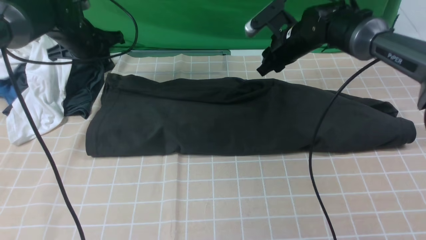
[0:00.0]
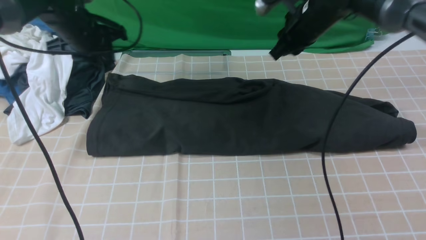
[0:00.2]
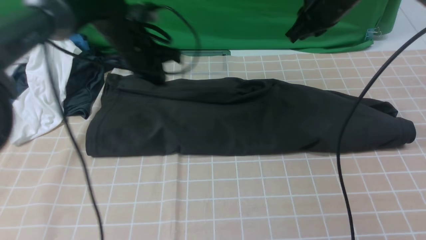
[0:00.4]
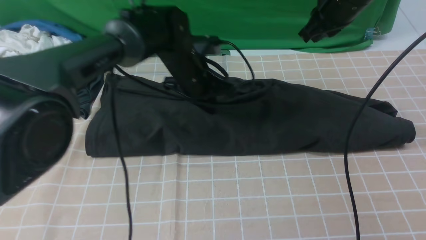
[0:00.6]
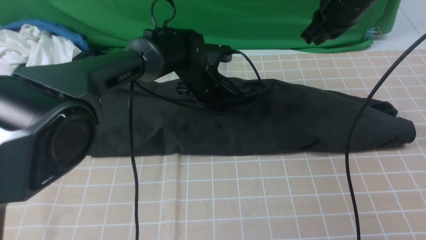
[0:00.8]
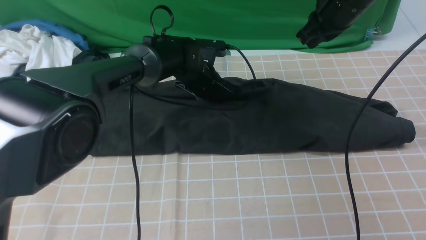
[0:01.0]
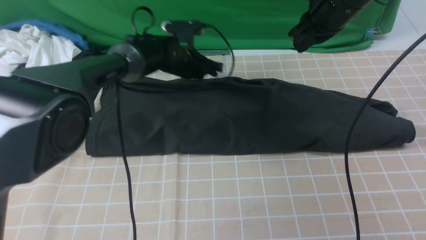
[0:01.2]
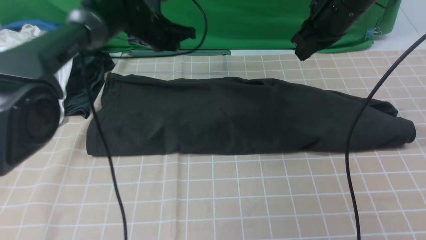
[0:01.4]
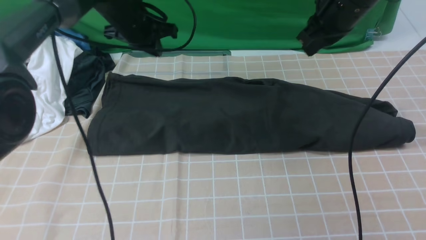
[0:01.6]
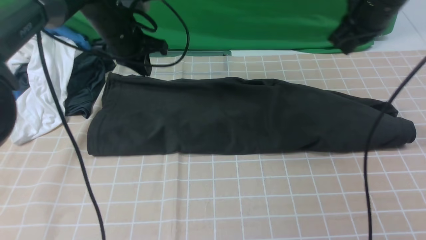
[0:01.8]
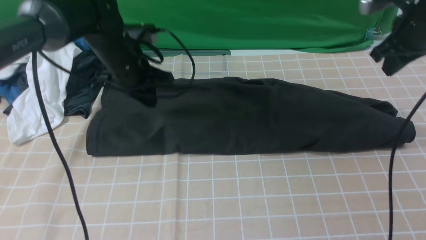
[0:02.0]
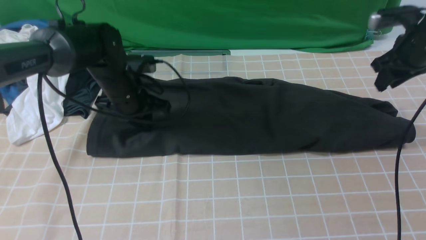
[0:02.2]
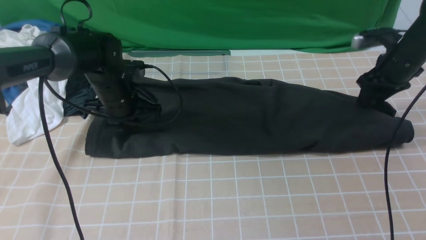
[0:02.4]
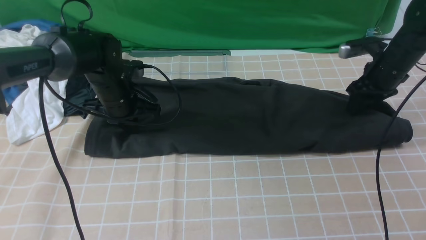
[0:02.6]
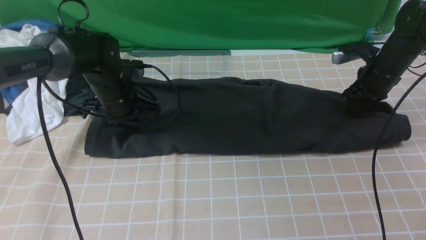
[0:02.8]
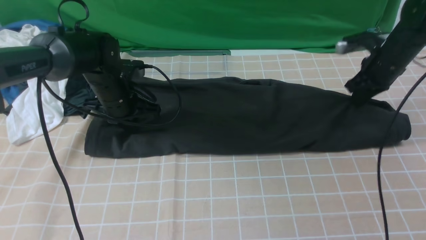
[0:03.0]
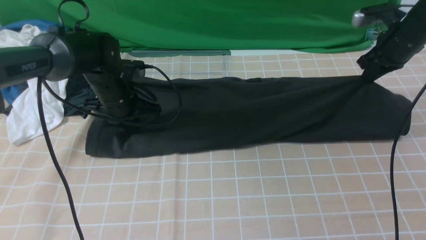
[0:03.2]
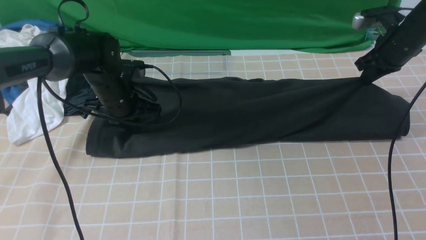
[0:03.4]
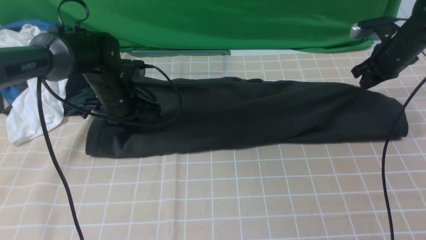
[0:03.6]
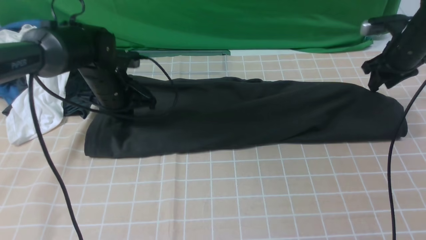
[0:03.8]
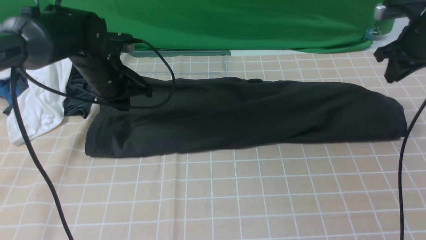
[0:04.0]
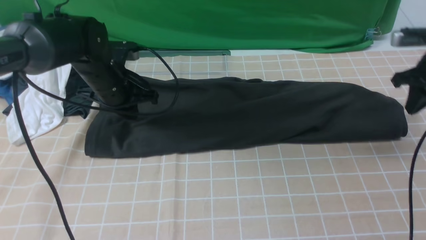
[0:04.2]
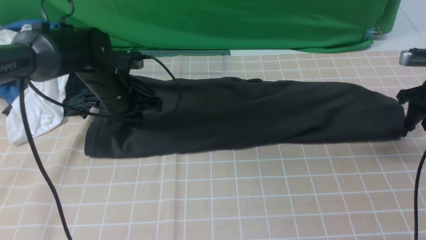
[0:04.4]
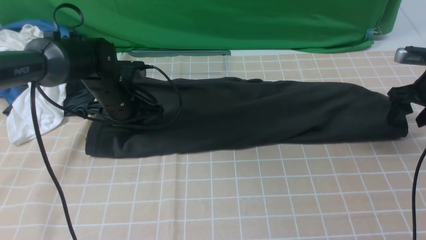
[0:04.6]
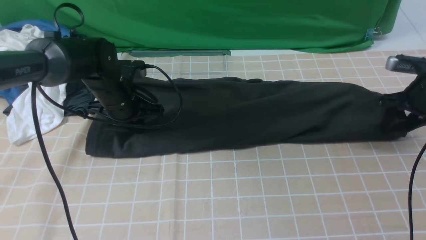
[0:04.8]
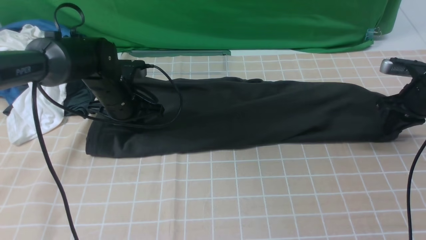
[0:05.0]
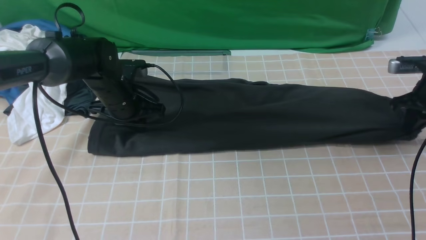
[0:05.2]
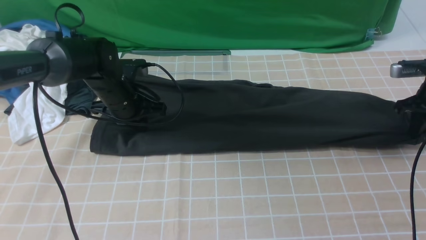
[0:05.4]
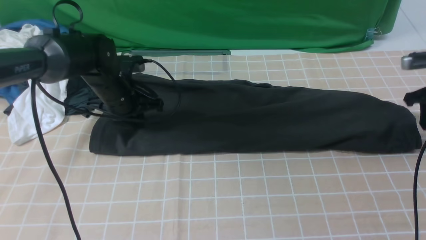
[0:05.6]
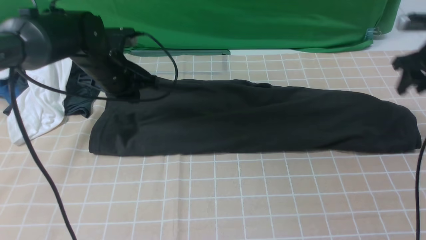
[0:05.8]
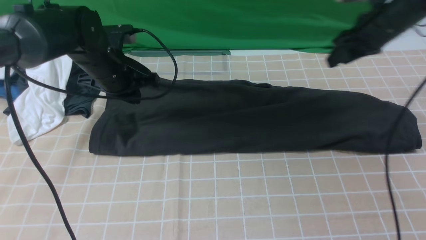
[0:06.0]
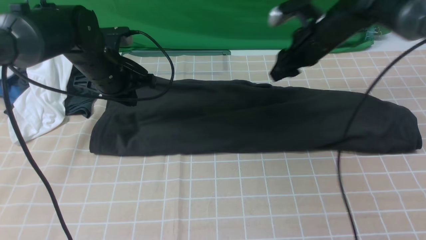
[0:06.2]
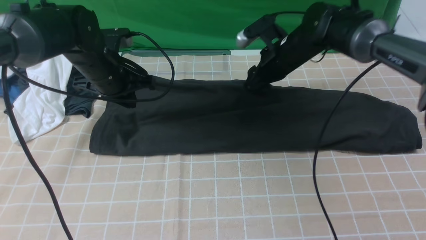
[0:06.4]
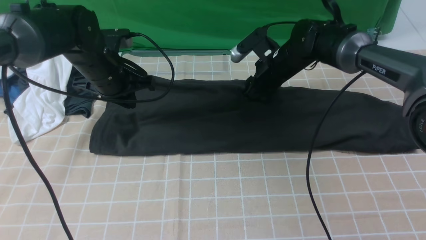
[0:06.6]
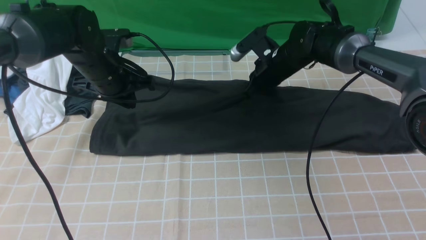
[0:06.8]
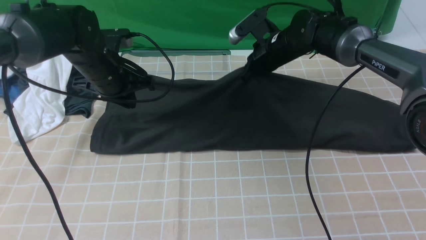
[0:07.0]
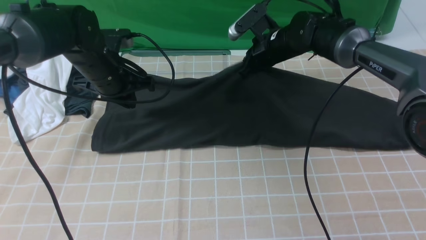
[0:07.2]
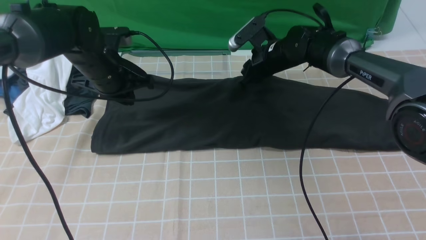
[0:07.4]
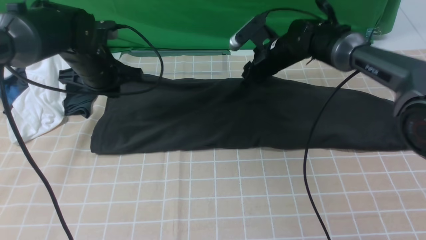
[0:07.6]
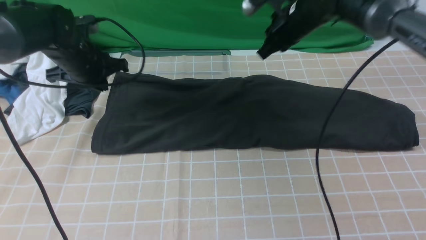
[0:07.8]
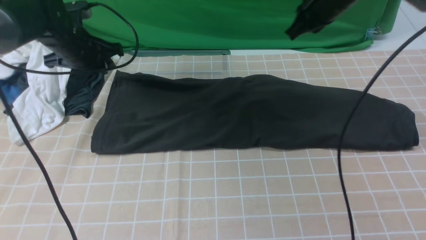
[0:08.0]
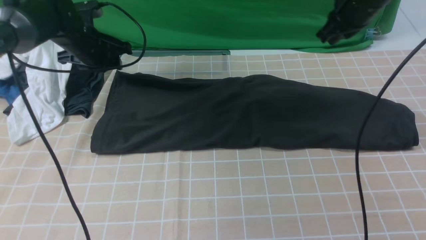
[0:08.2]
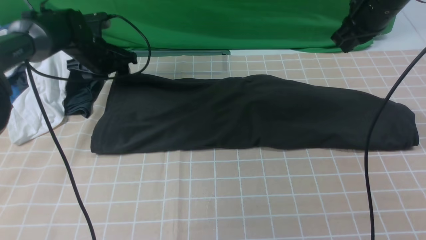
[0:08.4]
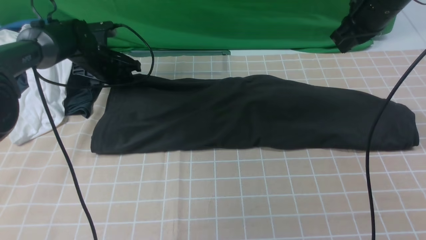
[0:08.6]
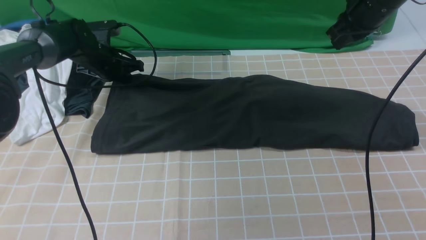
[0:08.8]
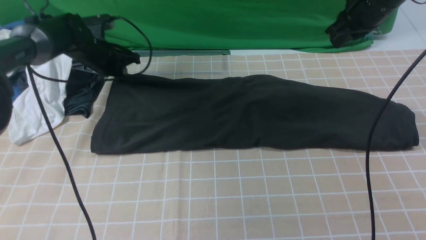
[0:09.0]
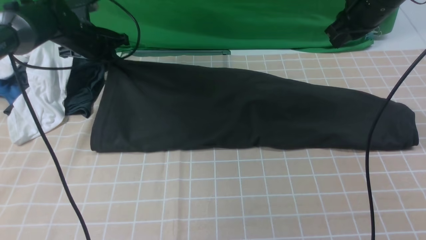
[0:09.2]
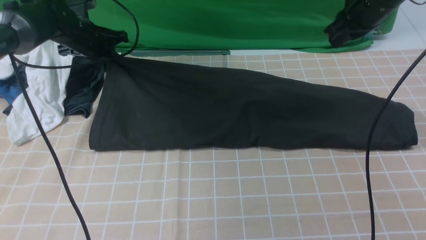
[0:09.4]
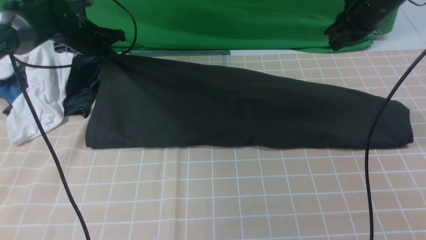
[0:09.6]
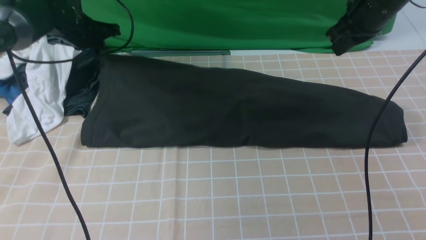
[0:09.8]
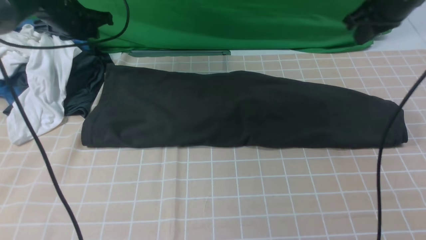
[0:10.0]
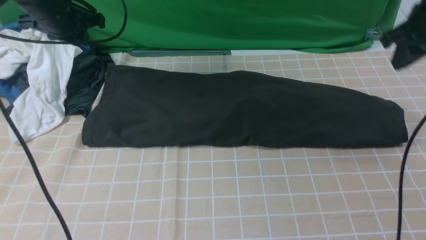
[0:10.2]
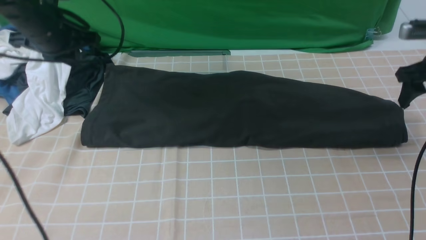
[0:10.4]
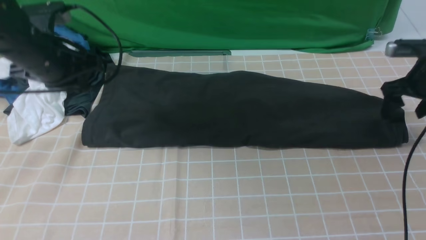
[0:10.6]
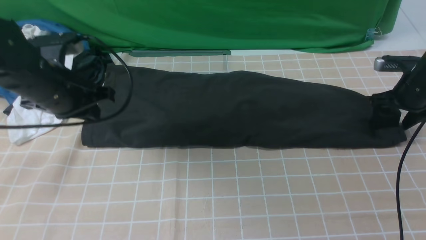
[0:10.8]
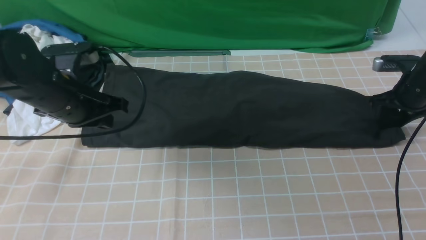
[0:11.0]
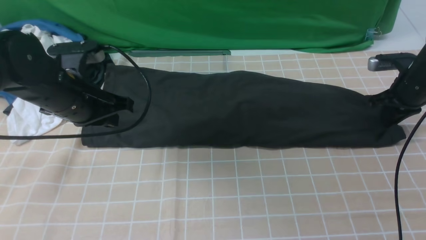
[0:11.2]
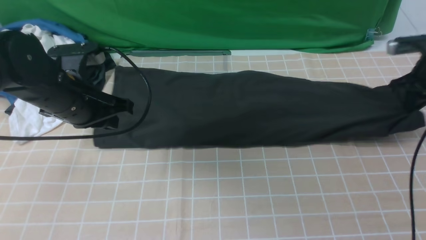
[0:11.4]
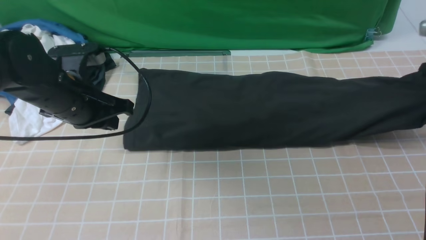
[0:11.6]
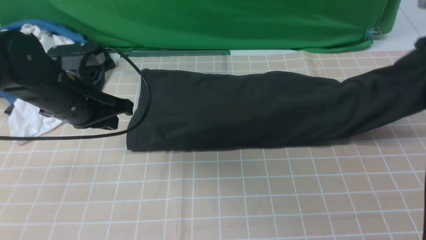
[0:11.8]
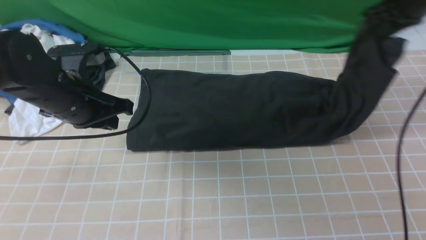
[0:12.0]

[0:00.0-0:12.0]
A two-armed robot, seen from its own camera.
Step, 0:00.2 to 0:11.2: use the right arm to clamp the right edge of the fabric.
0:00.0 to 0:01.6: The left gripper is displaced to the right by approximately 10 cm, and closes up. The right gripper travels upward, backward and to the right by about 15 cm, and closes up.
0:01.6 to 0:03.0: The left gripper moves downward and backward, approximately 10 cm. Meanwhile the right gripper travels downward and to the right by about 15 cm, and opens and closes again.
0:03.0 to 0:04.4: The right gripper goes about 10 cm backward and to the right, and opens.
0:04.4 to 0:06.0: The right gripper shifts roughly 15 cm to the left and forward, and closes, then opens again.
0:06.0 to 0:07.6: The right gripper goes roughly 15 cm to the left, and closes and opens again.
0:07.6 to 0:09.0: The left gripper is displaced forward by some 10 cm, and opens, then closes once more; the right gripper moves to the right and upward, some 15 cm, and closes its fingers.
0:09.0 to 0:10.4: The right gripper heads to the right and downward, covering about 15 cm, and opens its fingers; the left gripper moves upward and backward, approximately 15 cm.
0:10.4 to 0:12.0: The left gripper is displaced backward and to the right by roughly 10 cm; the right gripper shifts roughly 15 cm to the left and upward, and closes its fingers.

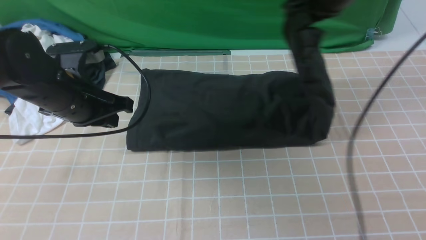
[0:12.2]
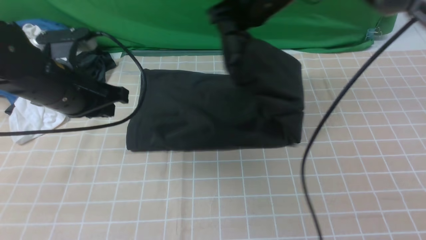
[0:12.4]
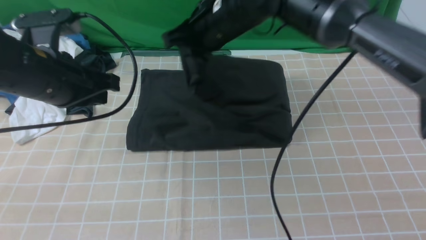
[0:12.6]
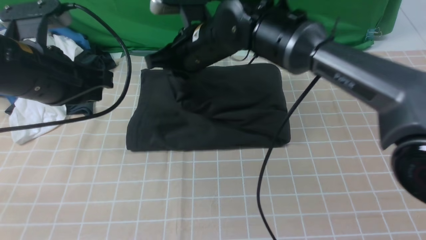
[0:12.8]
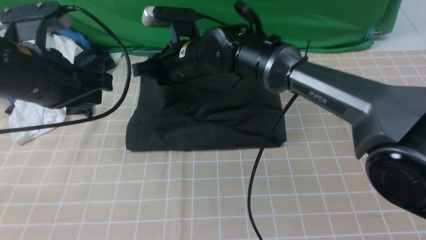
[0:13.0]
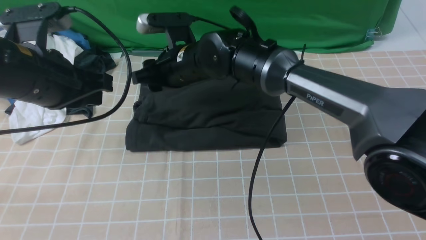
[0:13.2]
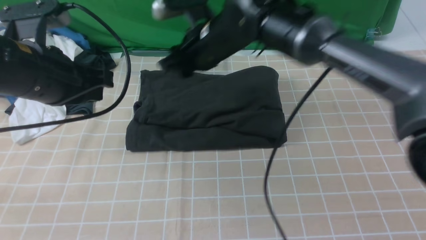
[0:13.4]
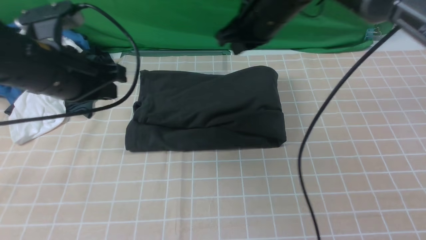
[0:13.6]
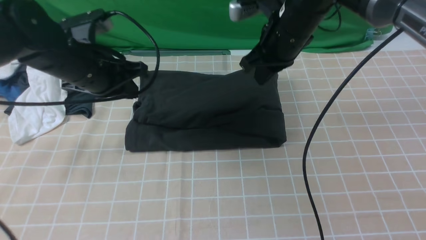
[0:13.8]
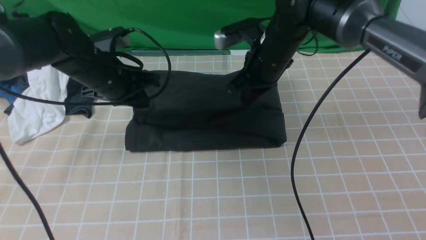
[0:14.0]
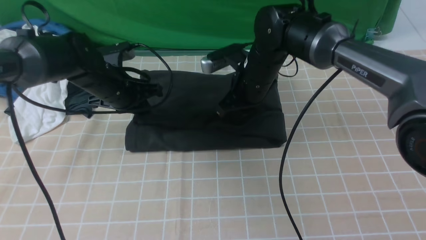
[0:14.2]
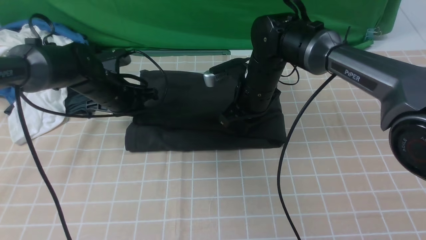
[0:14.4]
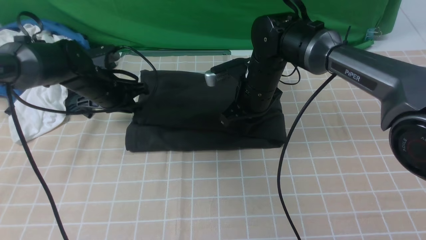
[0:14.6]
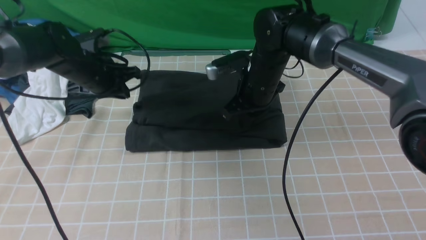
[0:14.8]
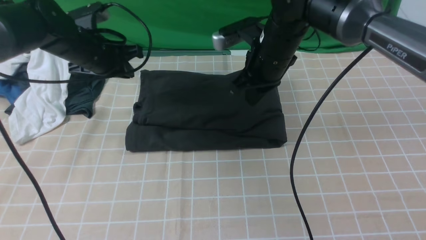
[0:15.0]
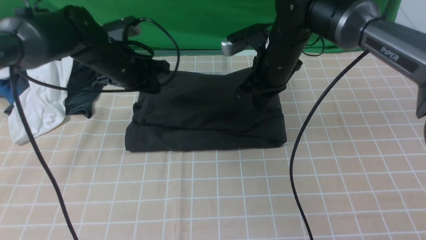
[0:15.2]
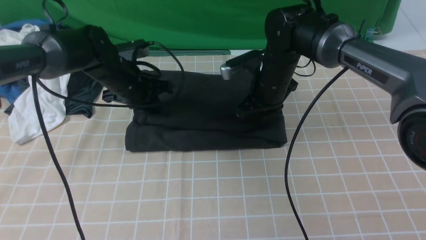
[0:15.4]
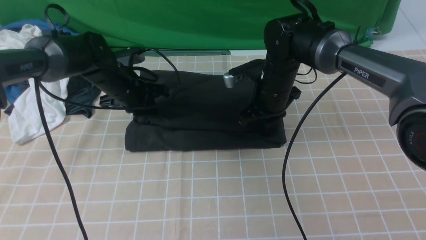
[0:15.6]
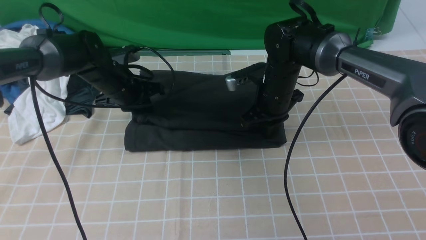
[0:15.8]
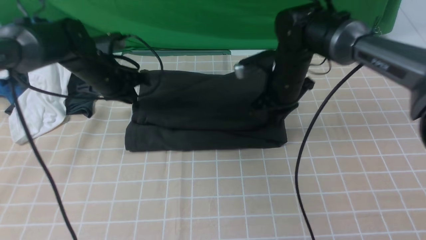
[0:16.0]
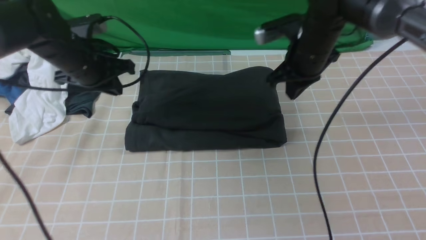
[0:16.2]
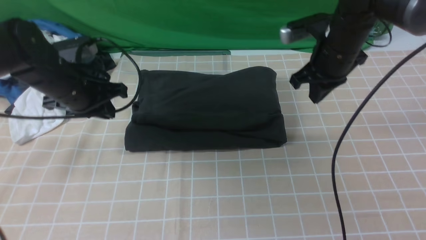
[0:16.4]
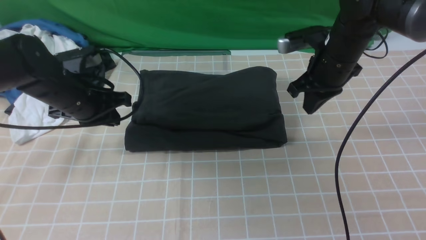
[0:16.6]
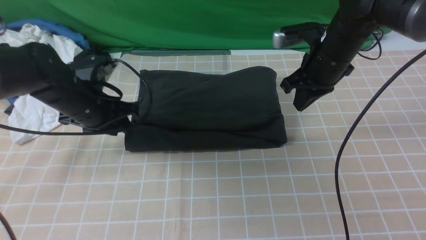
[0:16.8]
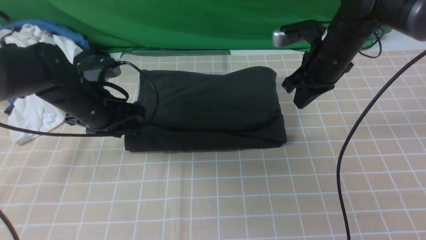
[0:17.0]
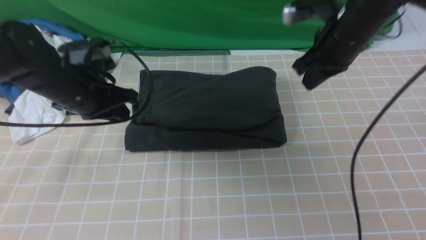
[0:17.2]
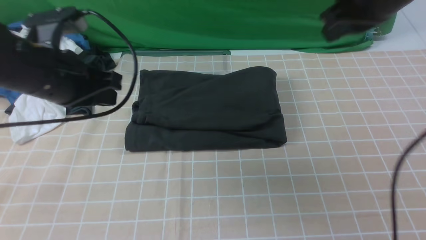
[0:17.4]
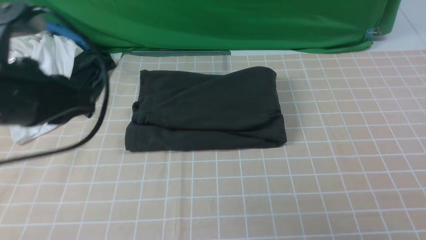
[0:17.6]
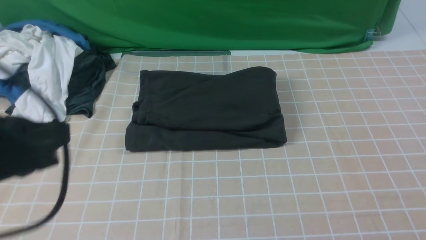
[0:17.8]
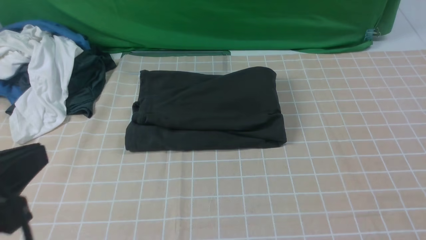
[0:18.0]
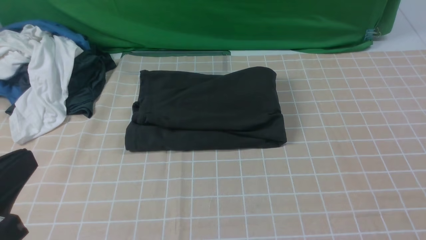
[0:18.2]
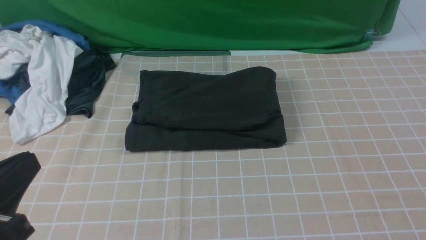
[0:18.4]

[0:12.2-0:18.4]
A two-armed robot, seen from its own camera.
Step, 0:12.2 to 0:14.0: use the right arm to drag the right edge of the fabric to the left and folds it over the left edge.
0:12.2 to 0:13.8: The right gripper travels downward by approximately 5 cm, goes to the left and returns, approximately 20 cm each way, and opens and closes again.
0:13.8 to 0:15.4: The left gripper goes up and down, some 10 cm each way, reversing 2 times. Meanwhile the right gripper moves up and down over about 10 cm, changing direction 2 times.
0:15.4 to 0:16.8: The left gripper is displaced backward by approximately 10 cm, and opens up, while the right gripper travels to the right and upward by about 10 cm.
0:16.8 to 0:18.4: Both grippers travel together backward, roughly 30 cm. The left gripper closes up.
